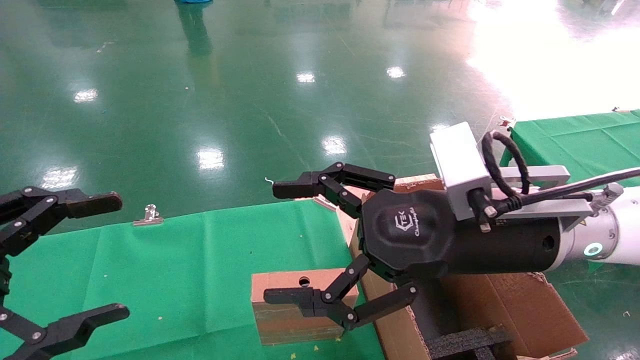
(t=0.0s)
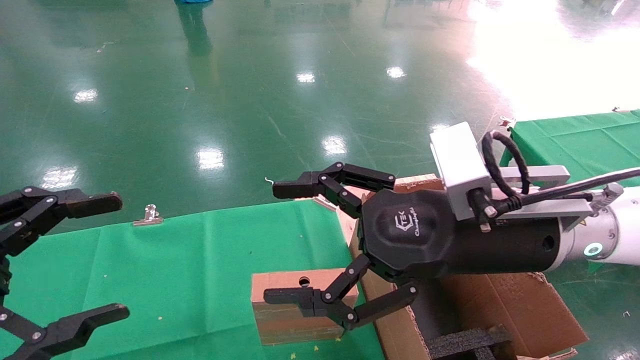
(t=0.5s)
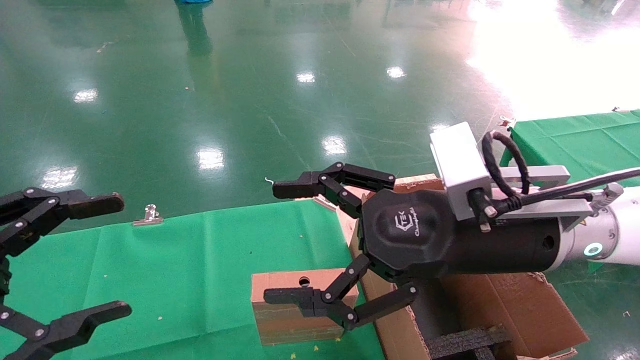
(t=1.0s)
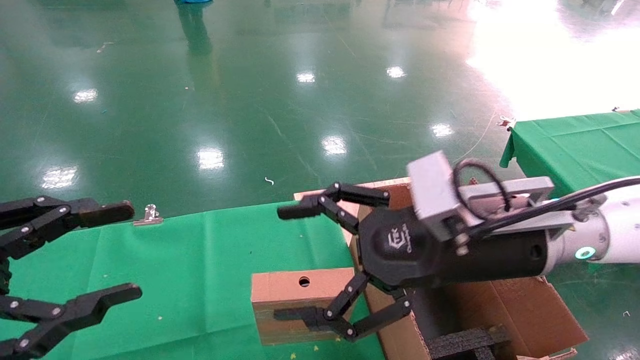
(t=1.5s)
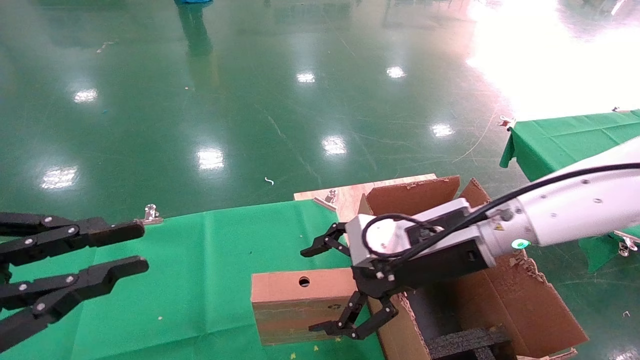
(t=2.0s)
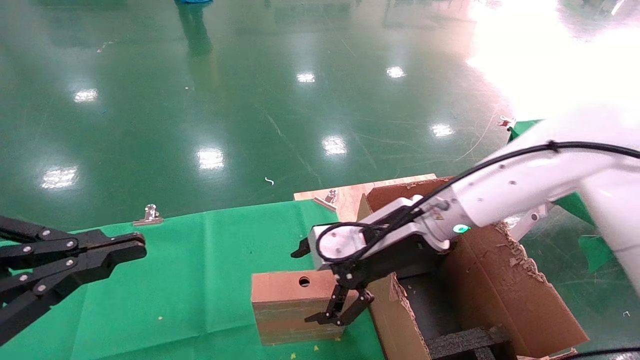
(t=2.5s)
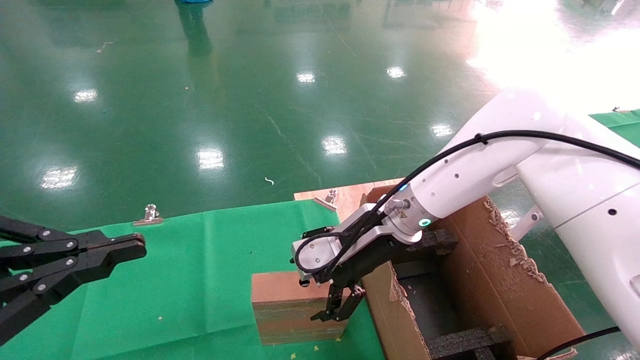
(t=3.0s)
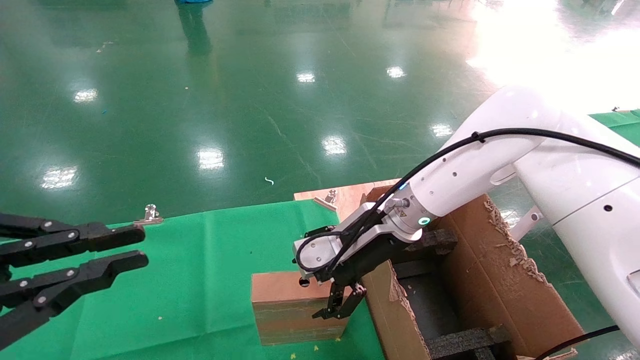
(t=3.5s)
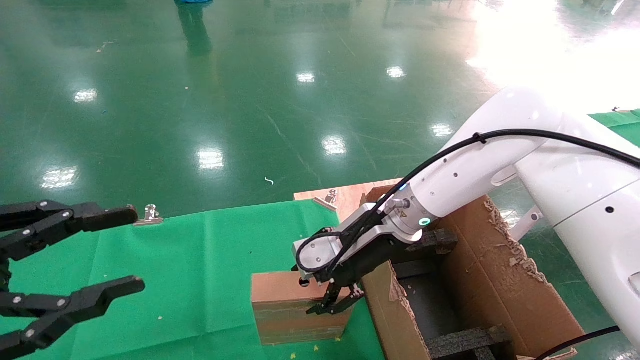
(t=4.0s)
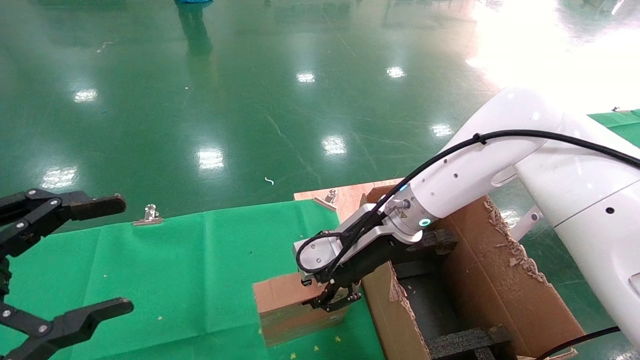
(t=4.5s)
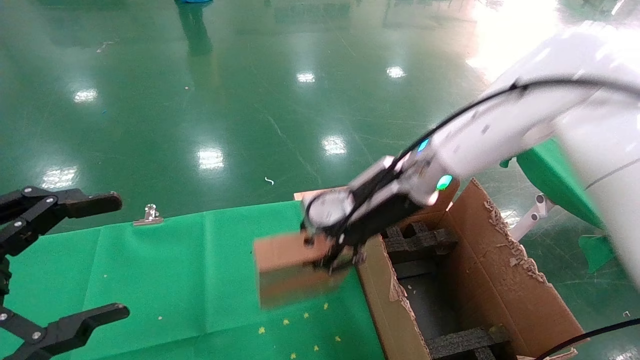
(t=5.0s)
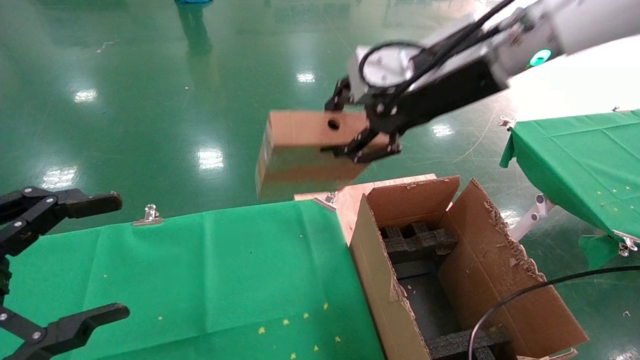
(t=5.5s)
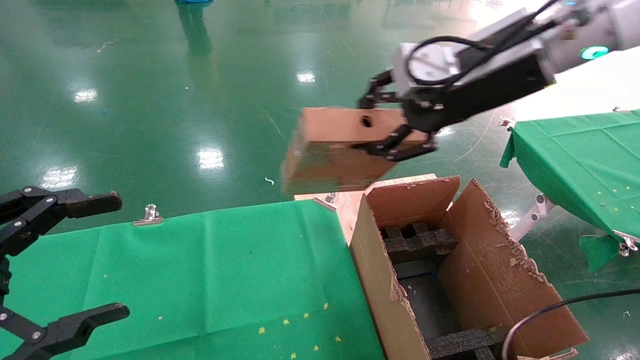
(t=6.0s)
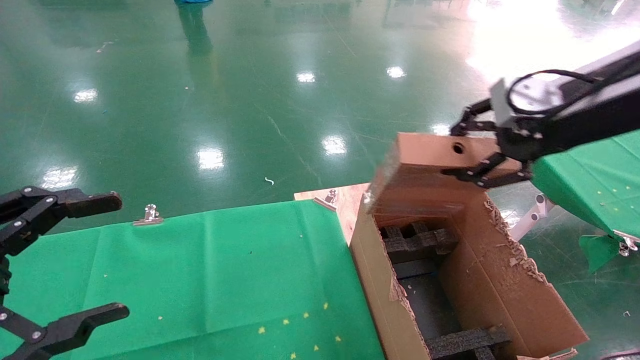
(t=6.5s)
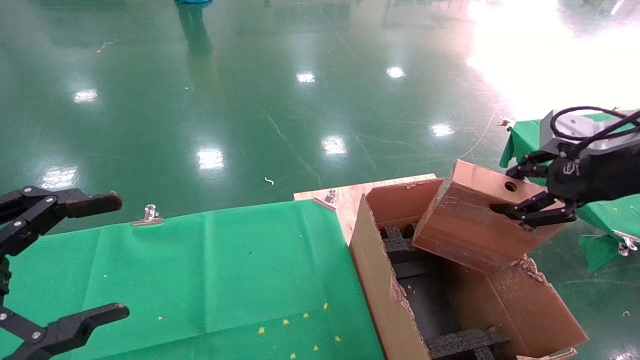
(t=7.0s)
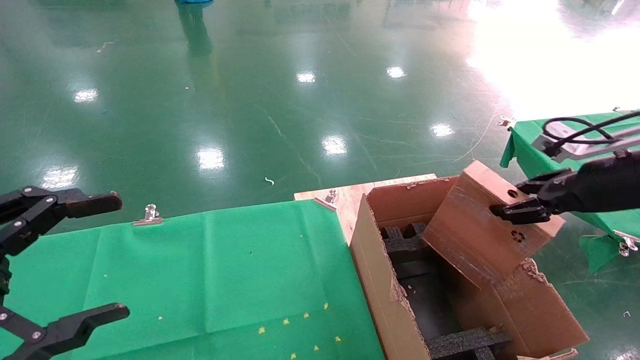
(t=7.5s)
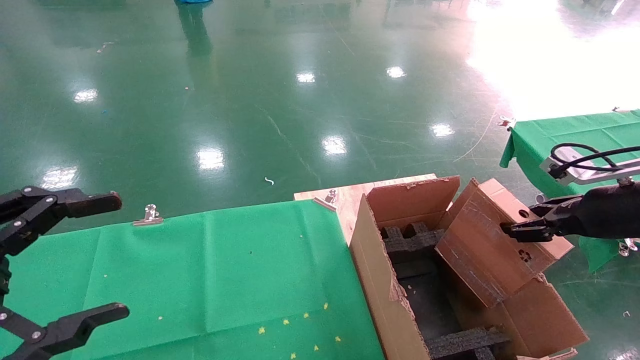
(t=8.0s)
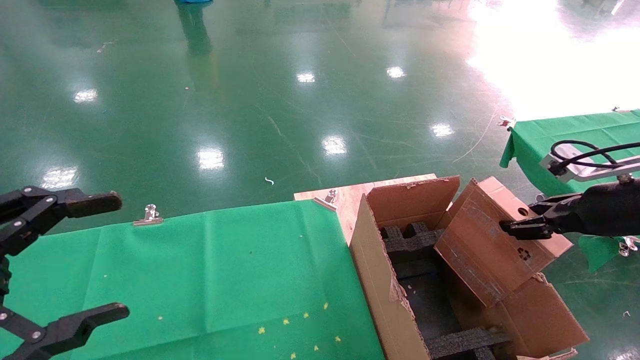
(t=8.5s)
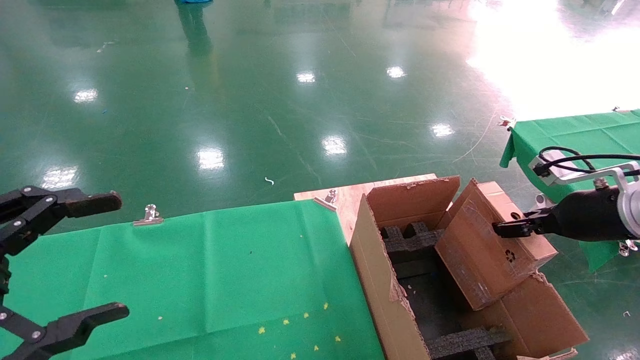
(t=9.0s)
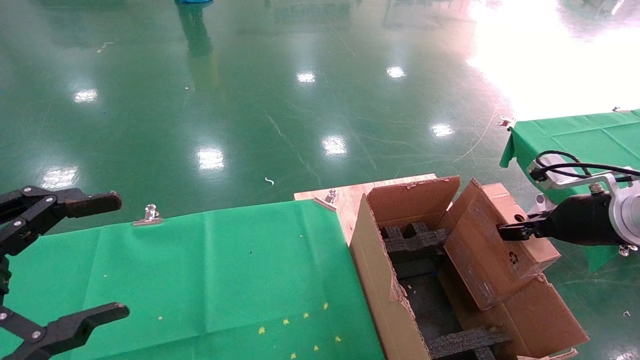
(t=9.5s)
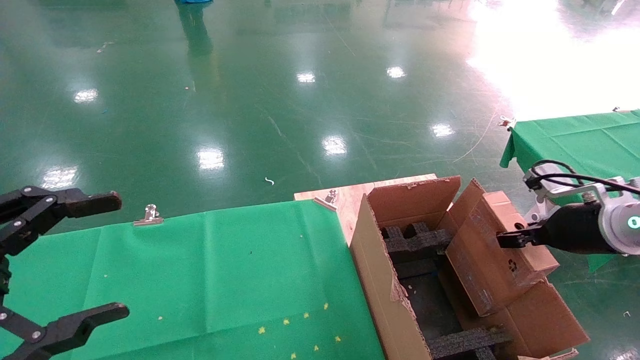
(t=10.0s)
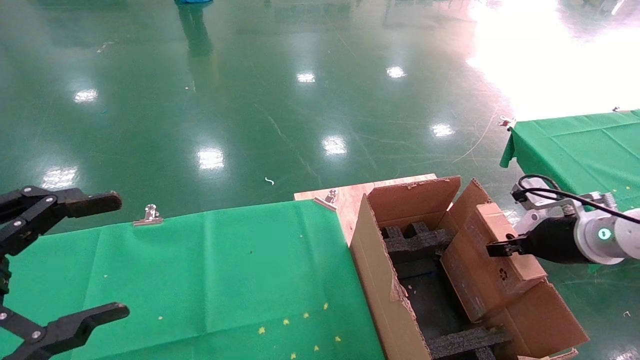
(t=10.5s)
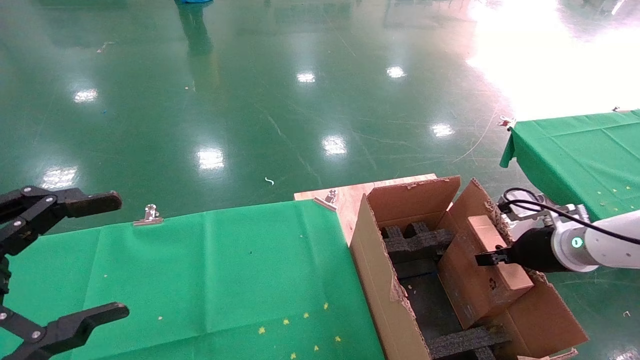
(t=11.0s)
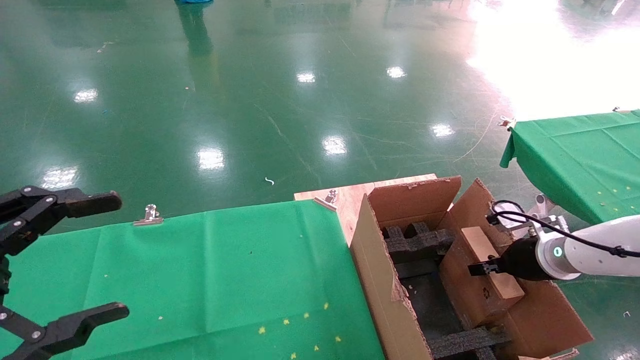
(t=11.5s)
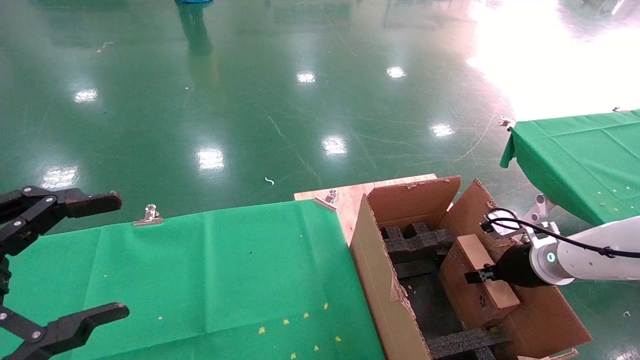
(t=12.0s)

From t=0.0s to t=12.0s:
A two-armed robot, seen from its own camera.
Task of the whole recording: using a robotic arm to pick up a cardboard box and palace it the carton.
Step, from t=2.0s to t=4.5s: Pick up the mouse and the power cord paper box.
From t=0.0s to t=2.0s: The left gripper closes up; the right gripper goes about 5 cm forward.
From t=2.0s to t=4.0s: The right gripper shifts approximately 10 cm forward.
From t=4.0s to t=6.0s: The right gripper shifts roughly 25 cm upward and to the right, and closes up. The left gripper opens.
From t=6.0s to t=8.0s: The right gripper moves to the right and downward, about 25 cm.
From t=8.0s to t=10.0s: The right gripper shifts by roughly 5 cm.
From t=10.0s to t=12.0s: The right gripper heads downward and forward, covering approximately 10 cm.

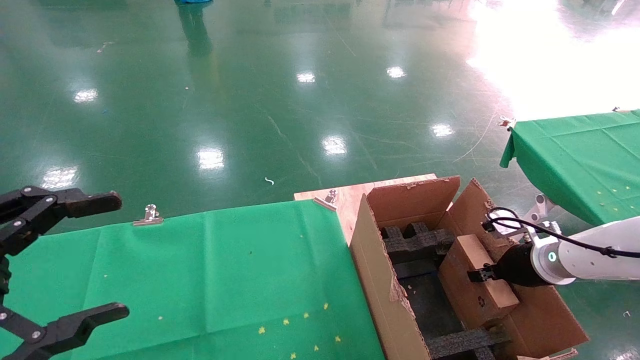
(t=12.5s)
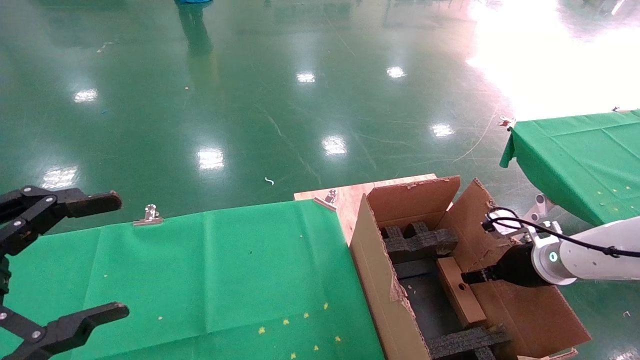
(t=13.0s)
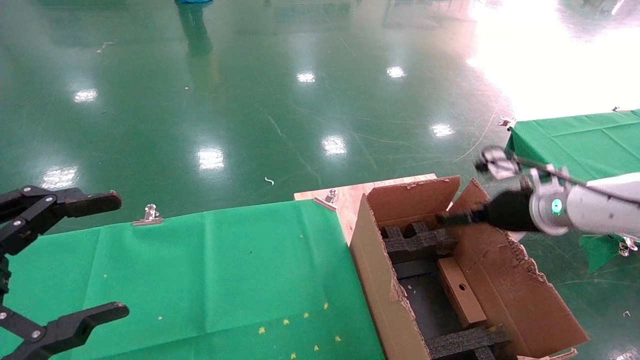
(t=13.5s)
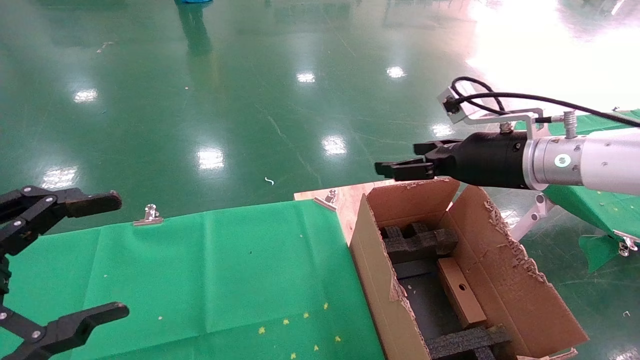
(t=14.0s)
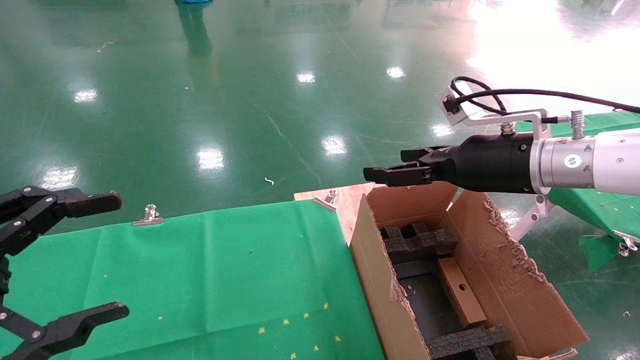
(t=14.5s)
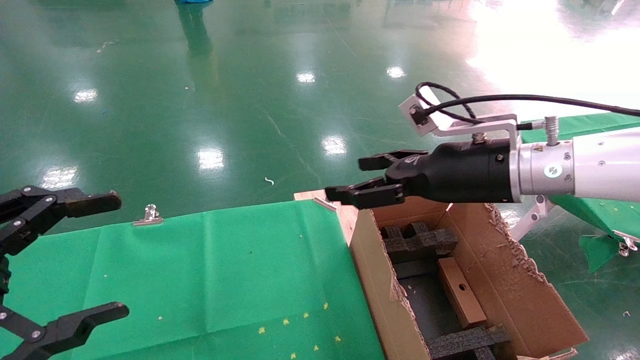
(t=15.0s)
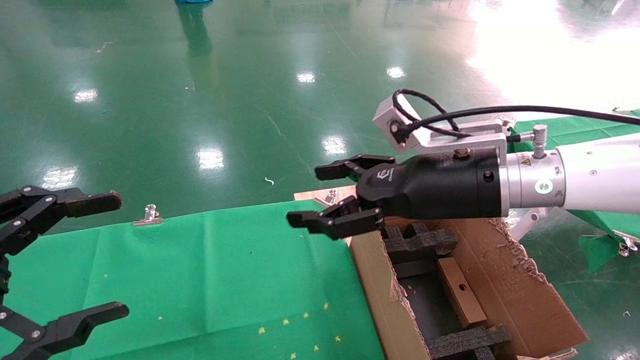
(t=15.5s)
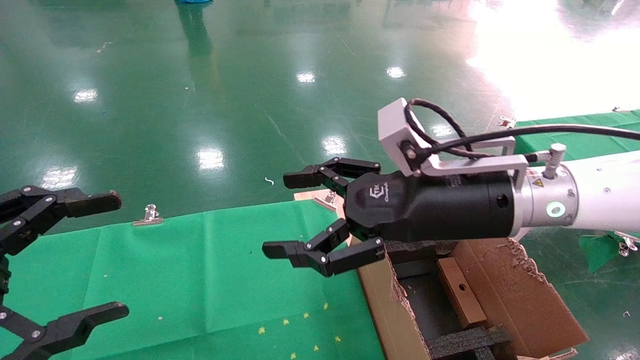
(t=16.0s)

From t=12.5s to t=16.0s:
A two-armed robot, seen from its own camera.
Task of the whole recording: using a robotic arm to pick up a cardboard box and palace it the carton.
From t=12.5s to t=14.5s: The right gripper travels upward and to the left by roughly 25 cm, and opens.
From t=14.5s to t=16.0s: The right gripper goes about 10 cm to the left.
